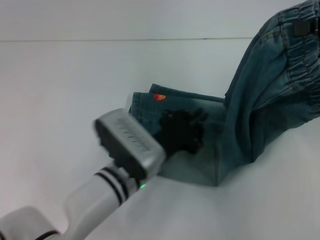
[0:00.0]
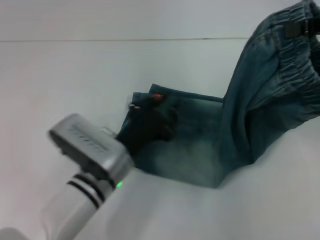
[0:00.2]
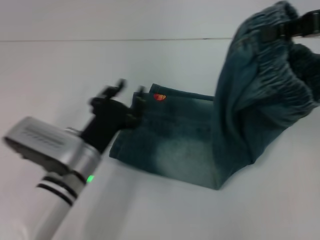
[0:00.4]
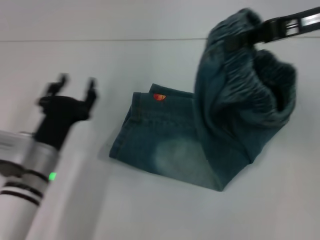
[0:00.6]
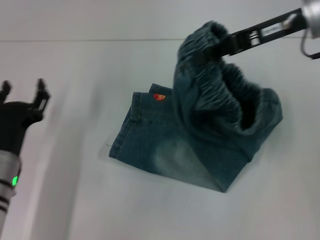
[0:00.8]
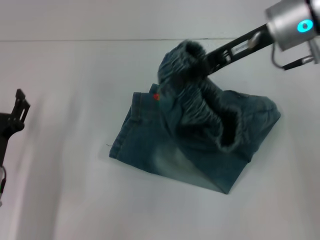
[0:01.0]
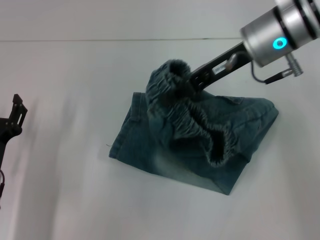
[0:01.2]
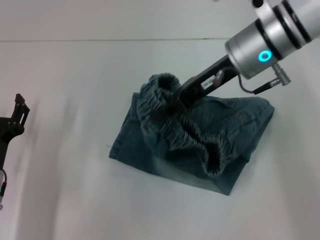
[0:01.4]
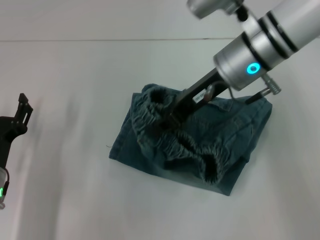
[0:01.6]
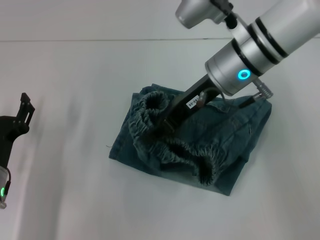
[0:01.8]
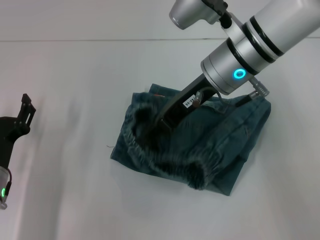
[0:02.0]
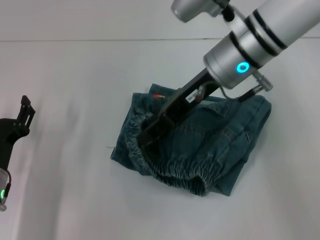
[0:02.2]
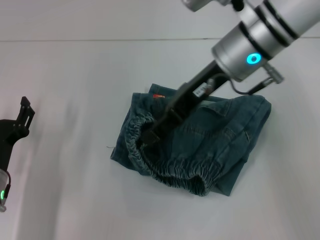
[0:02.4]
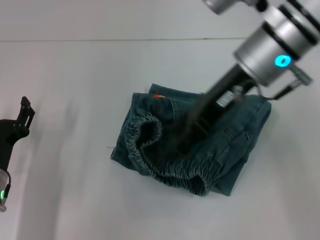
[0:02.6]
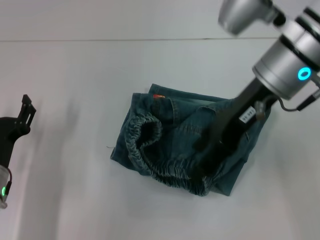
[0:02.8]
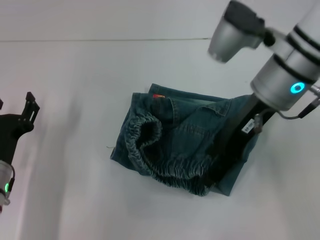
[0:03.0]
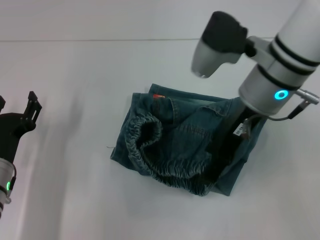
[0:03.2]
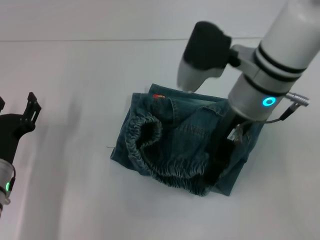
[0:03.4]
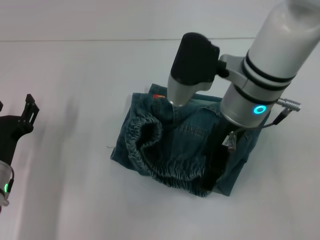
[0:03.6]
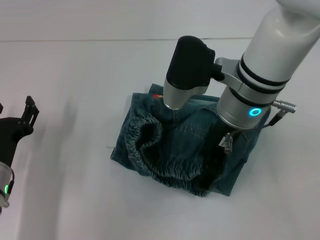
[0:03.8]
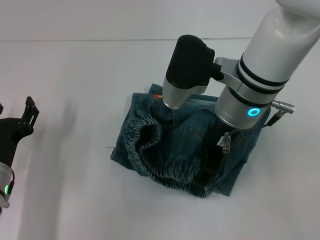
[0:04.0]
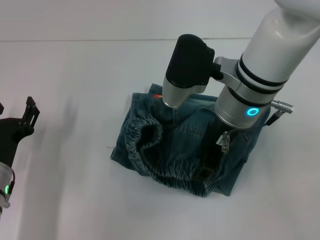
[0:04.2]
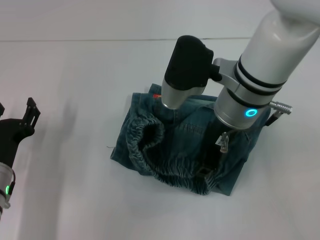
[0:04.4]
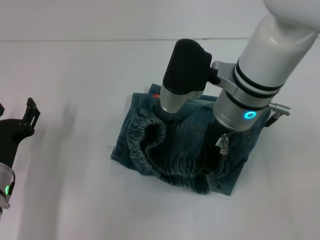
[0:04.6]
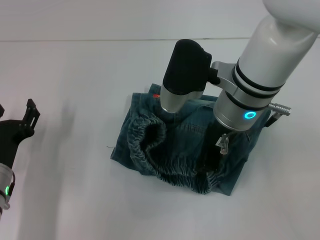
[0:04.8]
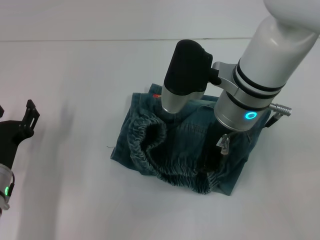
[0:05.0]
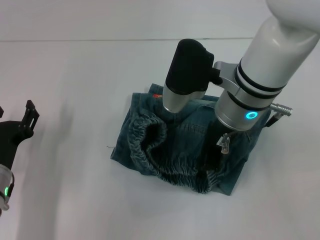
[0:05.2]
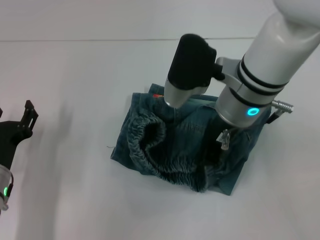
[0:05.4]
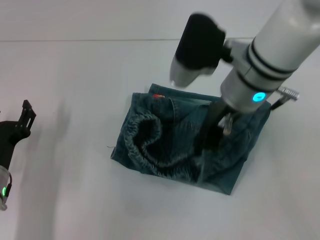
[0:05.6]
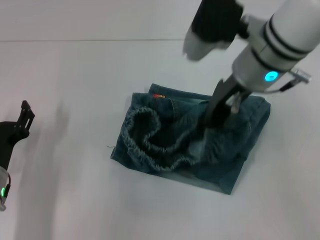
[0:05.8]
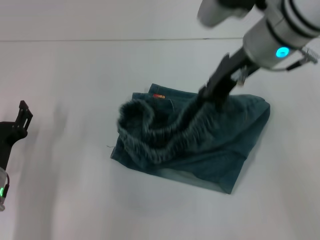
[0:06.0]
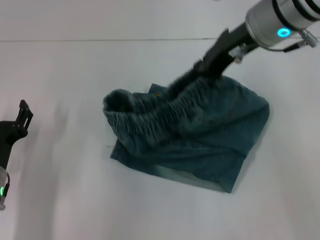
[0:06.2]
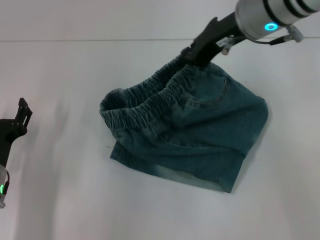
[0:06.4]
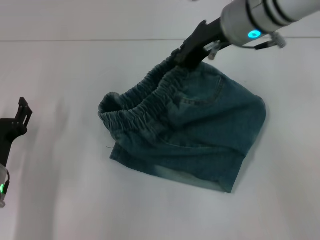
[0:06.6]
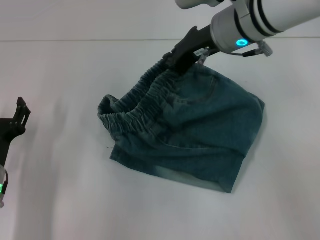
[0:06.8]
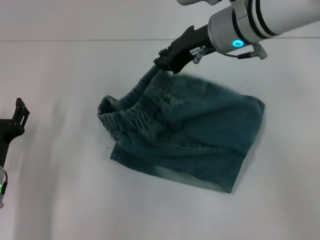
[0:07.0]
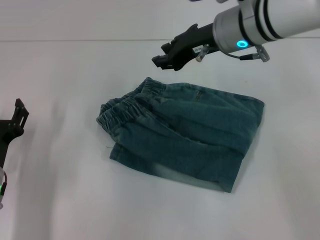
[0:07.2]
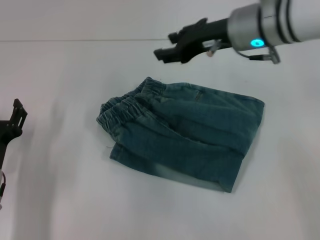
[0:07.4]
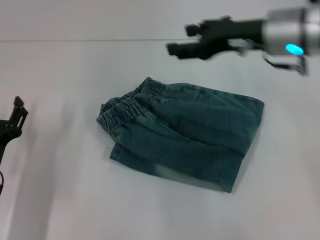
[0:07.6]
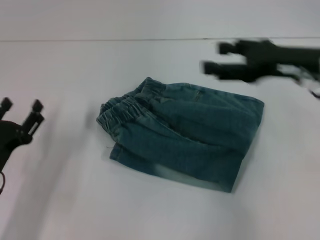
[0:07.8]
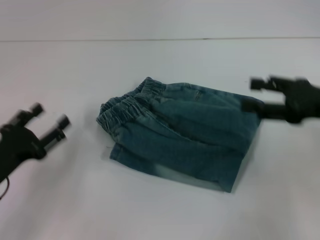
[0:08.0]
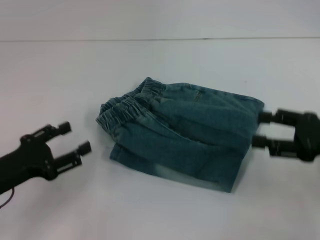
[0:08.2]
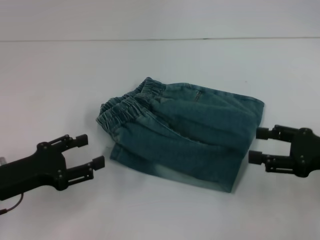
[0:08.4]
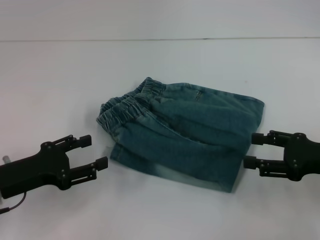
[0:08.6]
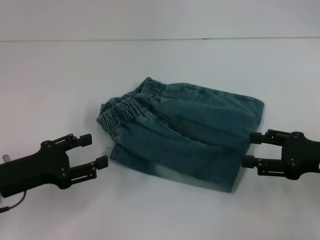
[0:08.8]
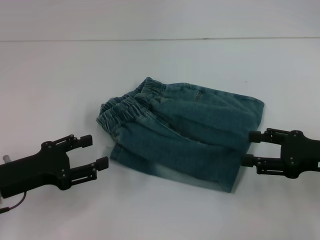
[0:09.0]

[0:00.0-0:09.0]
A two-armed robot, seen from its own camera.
Step, 0:00.0 to 0:07.0: Fold to the left with your right hand.
0:00.0 to 0:01.6: The two grippers go roughly 20 cm to the left. The left gripper opens up.
0:01.6 to 0:03.0: The right gripper opens.
0:03.0 to 0:04.4: The right gripper moves to the left, about 5 cm, and closes up.
0:04.4 to 0:06.0: The right gripper travels upward by approximately 5 cm, and closes up.
0:06.0 to 0:07.6: The right gripper changes place by roughly 5 cm, and opens.
0:07.6 to 0:09.0: The right gripper travels to the right, backward and downward by about 20 cm. The left gripper travels upward by roughly 5 cm.

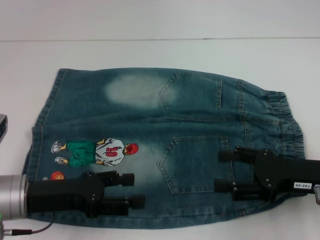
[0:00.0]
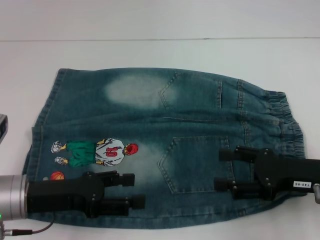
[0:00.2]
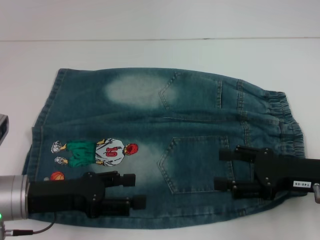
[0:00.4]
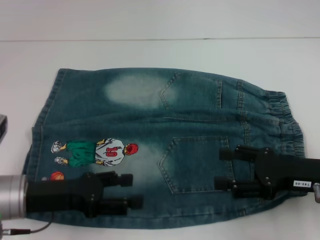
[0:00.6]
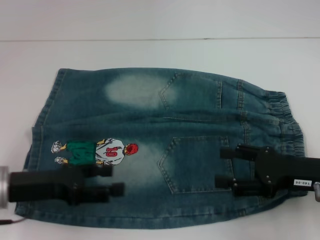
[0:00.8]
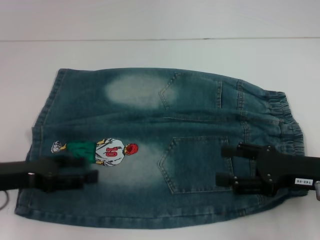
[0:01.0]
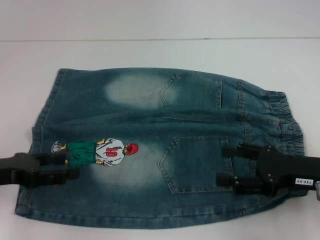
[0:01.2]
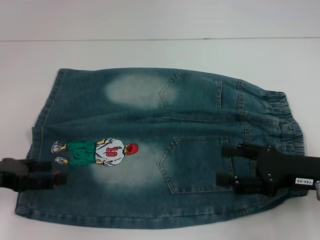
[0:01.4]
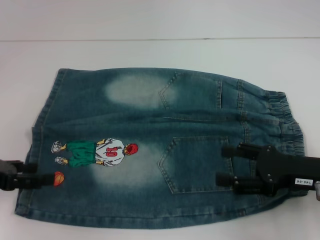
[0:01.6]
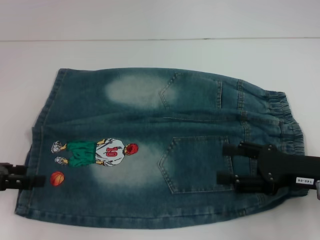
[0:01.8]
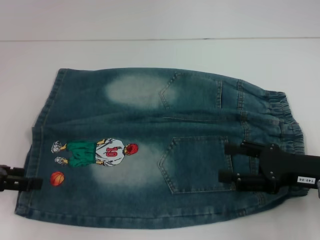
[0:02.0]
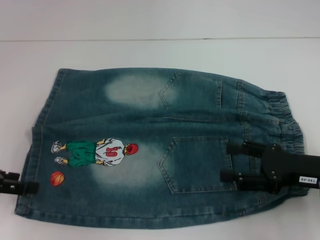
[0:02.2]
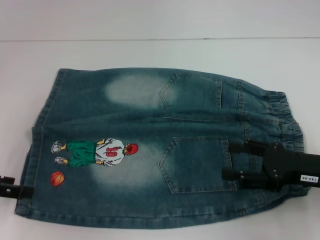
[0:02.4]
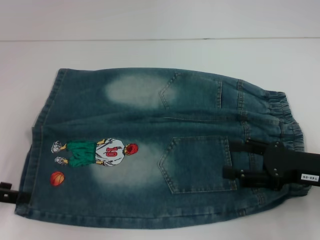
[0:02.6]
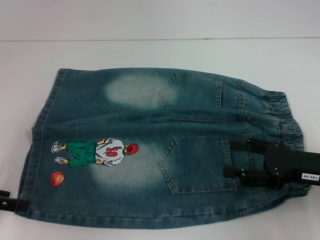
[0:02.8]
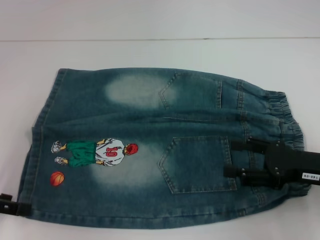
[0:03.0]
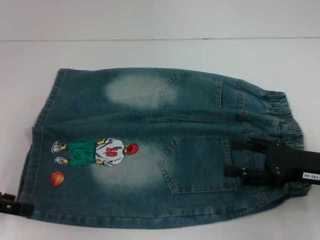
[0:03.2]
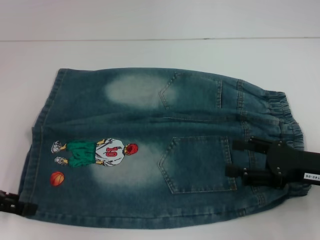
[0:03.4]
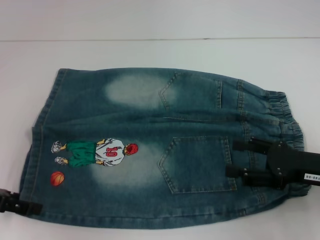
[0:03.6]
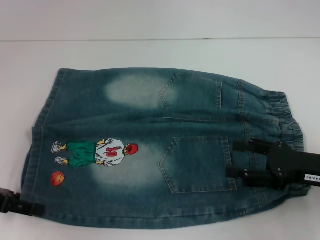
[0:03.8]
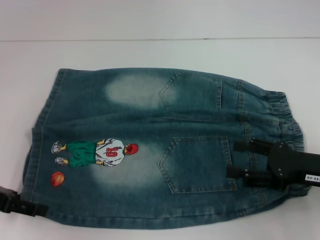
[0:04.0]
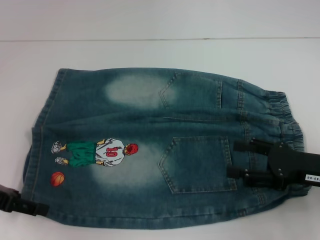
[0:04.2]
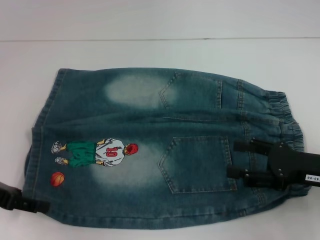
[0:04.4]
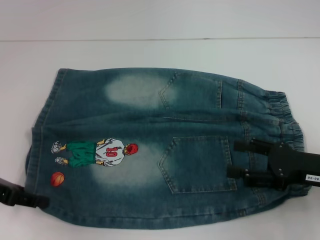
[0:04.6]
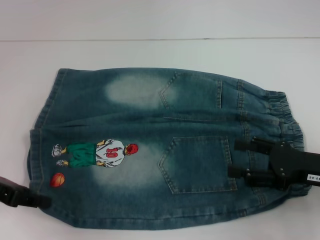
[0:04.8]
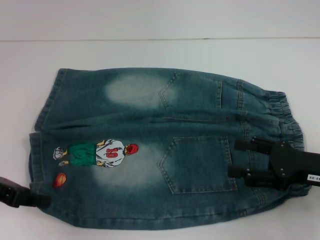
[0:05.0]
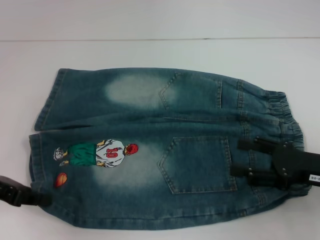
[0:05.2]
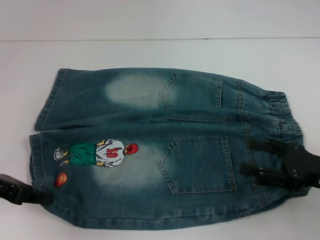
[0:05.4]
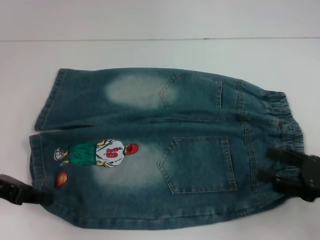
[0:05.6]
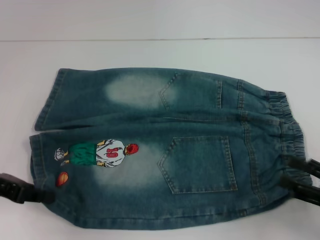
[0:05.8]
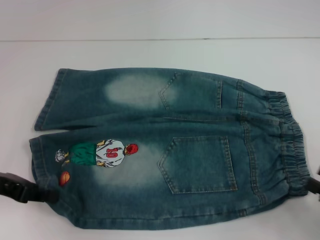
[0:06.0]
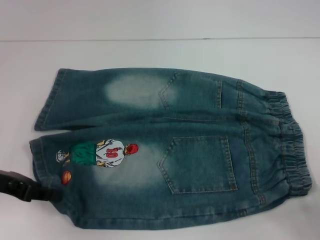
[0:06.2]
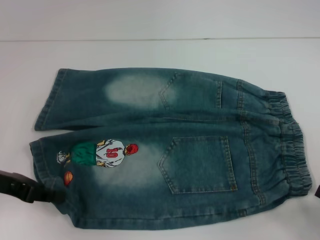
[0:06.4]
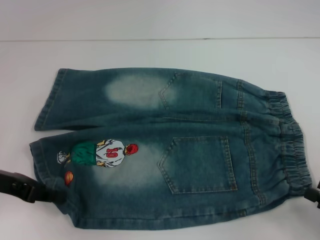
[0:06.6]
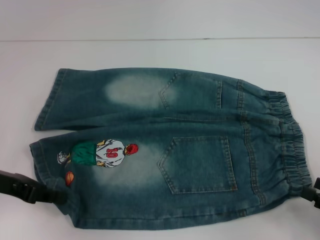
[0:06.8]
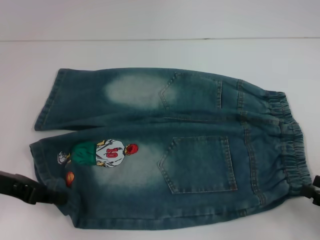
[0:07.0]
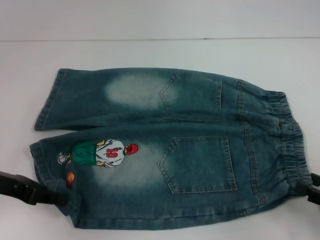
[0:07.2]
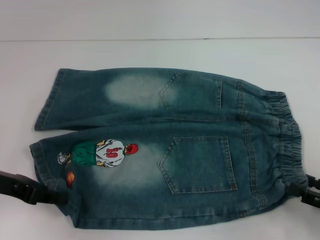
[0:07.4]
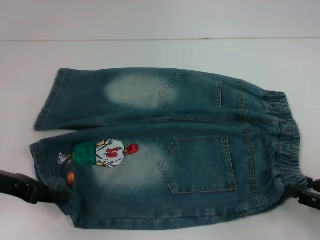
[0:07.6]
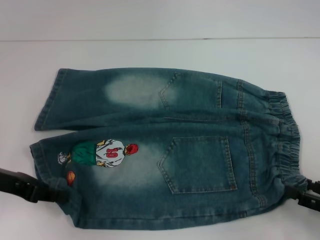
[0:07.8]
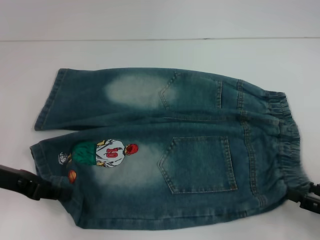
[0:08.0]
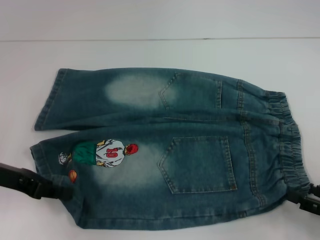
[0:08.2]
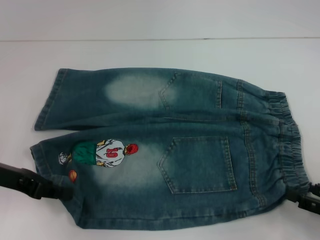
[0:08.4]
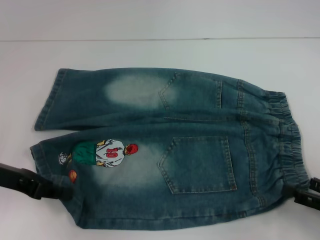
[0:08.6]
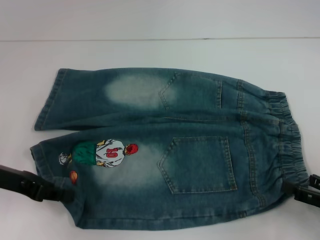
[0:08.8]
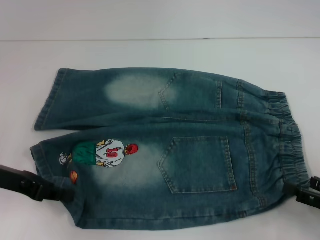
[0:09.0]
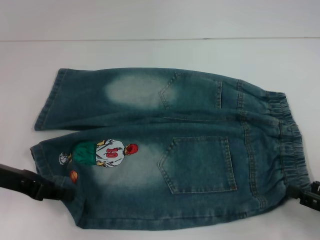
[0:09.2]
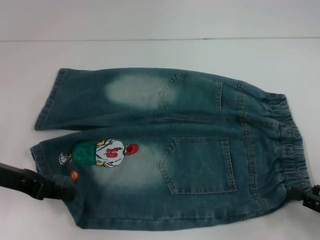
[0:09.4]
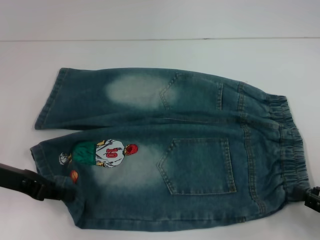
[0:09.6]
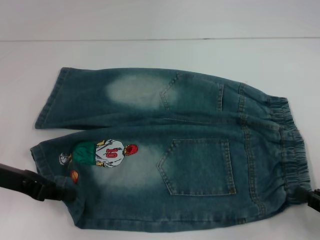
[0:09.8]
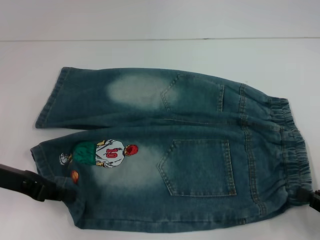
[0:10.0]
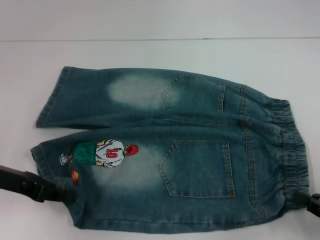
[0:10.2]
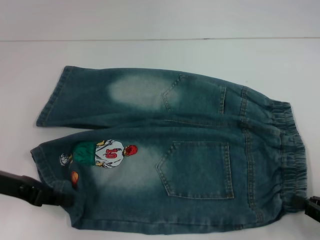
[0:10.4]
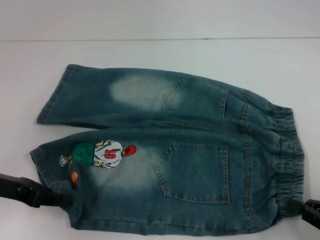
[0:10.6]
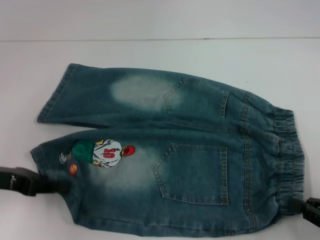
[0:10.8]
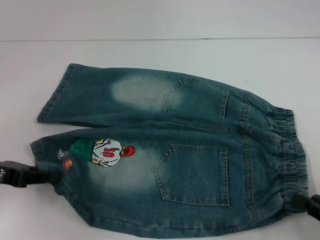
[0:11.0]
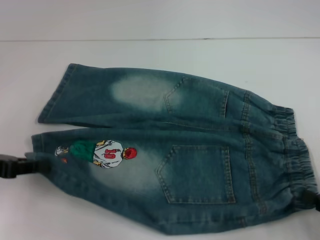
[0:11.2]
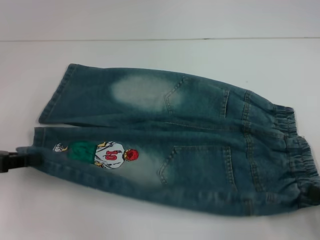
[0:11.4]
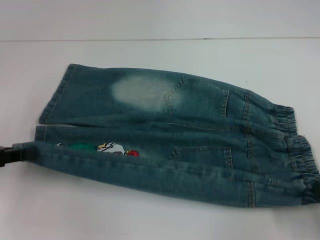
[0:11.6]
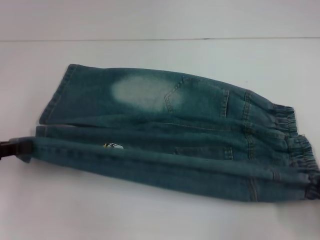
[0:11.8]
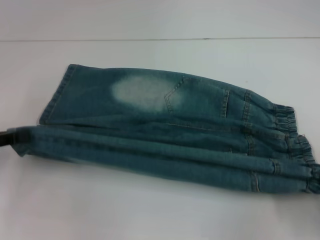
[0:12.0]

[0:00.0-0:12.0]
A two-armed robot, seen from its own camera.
Step, 0:00.0 to 0:10.2: Hold the lower right waistband with your right hand.
0:00.0 to 0:01.6: The left gripper goes roughly 10 cm to the left.
0:01.6 to 0:04.4: The grippers make only small movements.
0:04.4 to 0:06.0: The left gripper closes its fingers; the right gripper heads backward and to the right, covering approximately 15 cm.
0:06.0 to 0:07.6: The grippers move only a little.
0:07.6 to 0:09.0: Both grippers stay about where they are.
0:09.0 to 0:10.4: The right gripper closes its fingers.
0:10.4 to 0:12.0: The left gripper goes roughly 5 cm to the left.

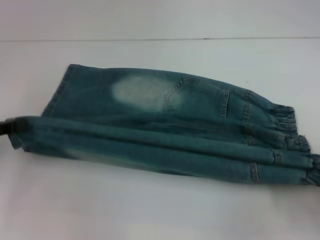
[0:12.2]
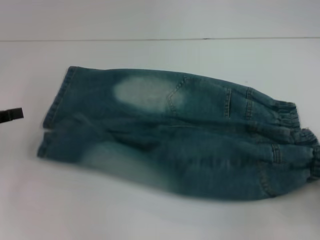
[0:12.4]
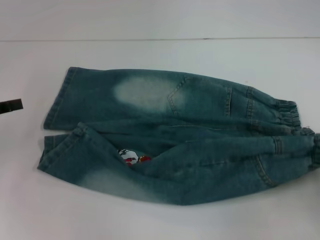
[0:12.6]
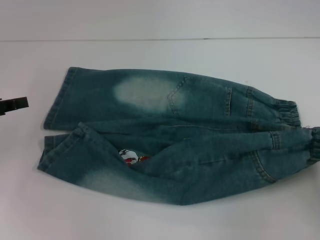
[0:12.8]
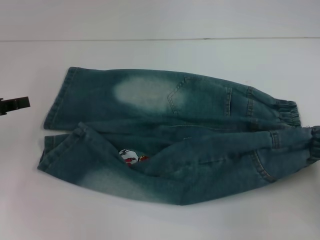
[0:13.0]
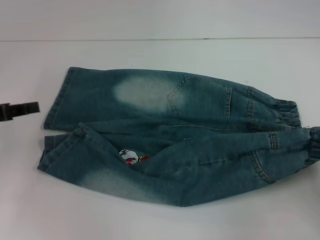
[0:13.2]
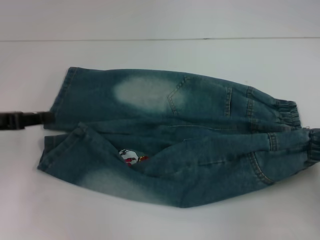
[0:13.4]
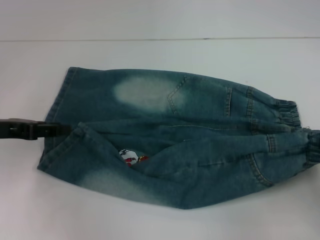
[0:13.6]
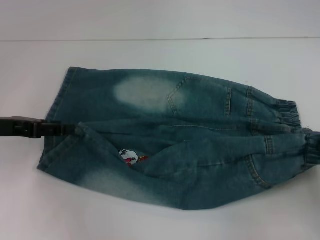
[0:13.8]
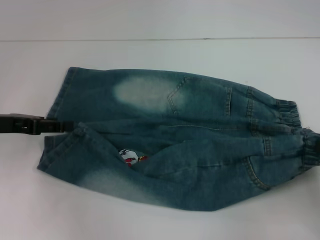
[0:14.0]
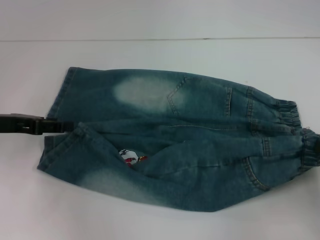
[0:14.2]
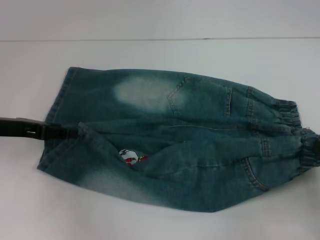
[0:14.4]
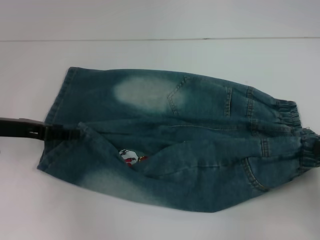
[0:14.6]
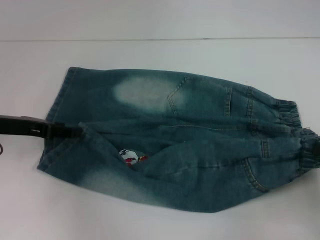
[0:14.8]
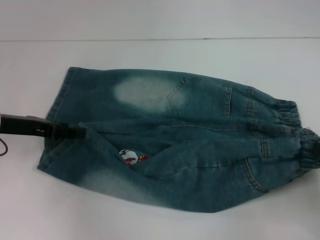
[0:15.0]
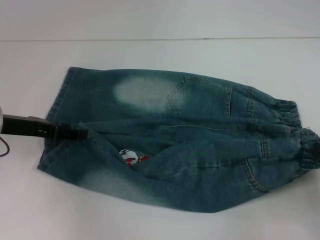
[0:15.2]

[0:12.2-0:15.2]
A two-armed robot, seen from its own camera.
0:12.2 to 0:13.8: The left gripper shifts roughly 5 cm to the right, and opens its fingers.
0:13.8 to 0:15.2: The grippers move only a little.
